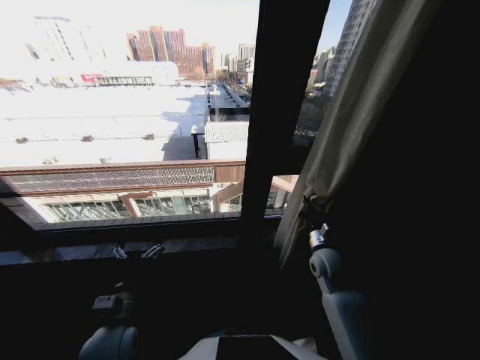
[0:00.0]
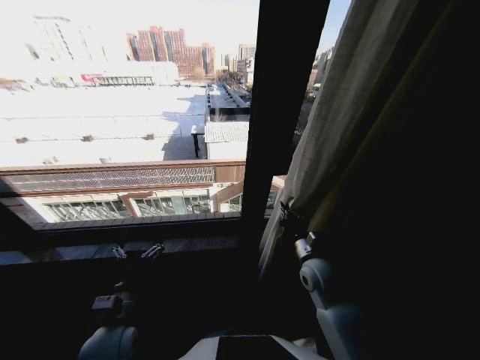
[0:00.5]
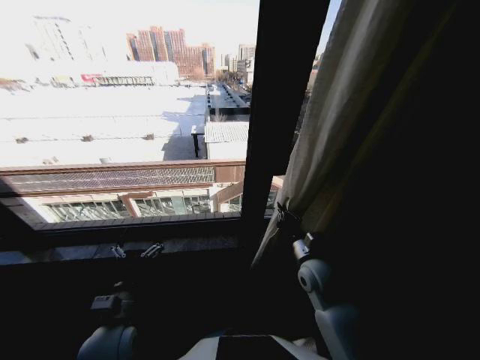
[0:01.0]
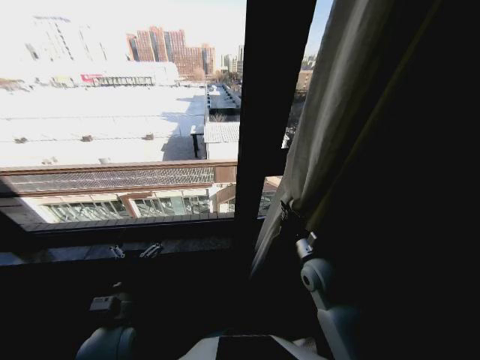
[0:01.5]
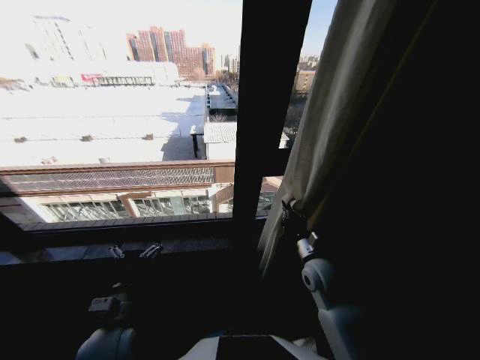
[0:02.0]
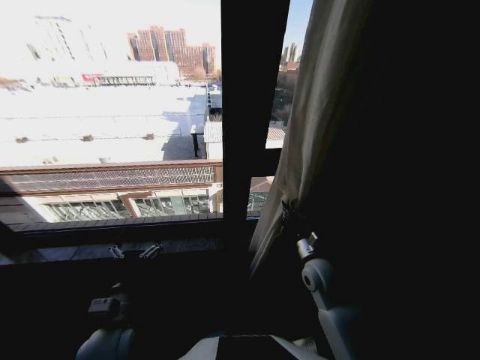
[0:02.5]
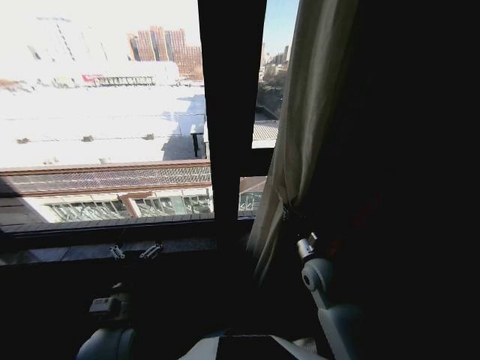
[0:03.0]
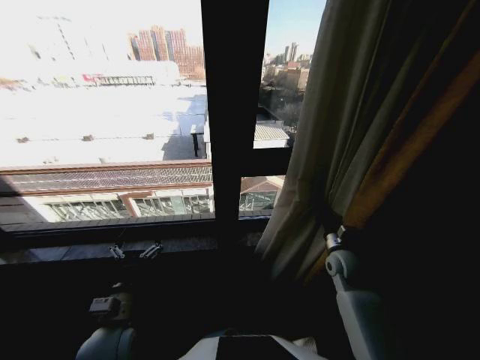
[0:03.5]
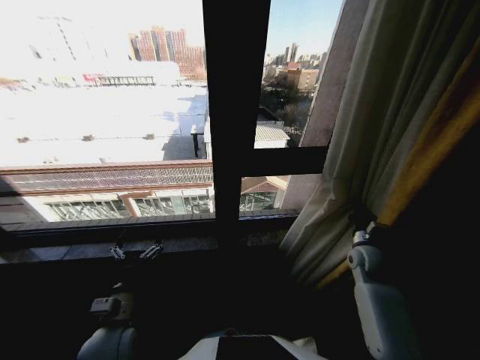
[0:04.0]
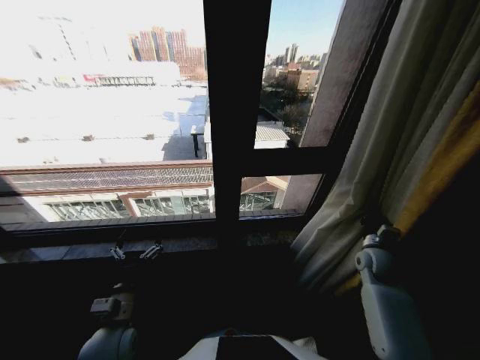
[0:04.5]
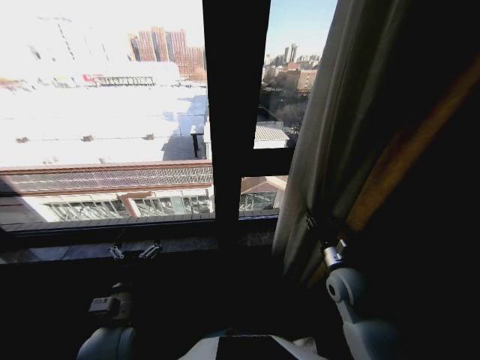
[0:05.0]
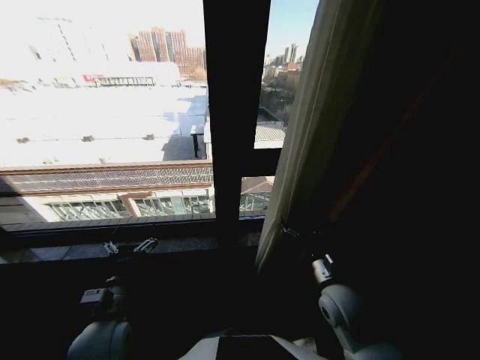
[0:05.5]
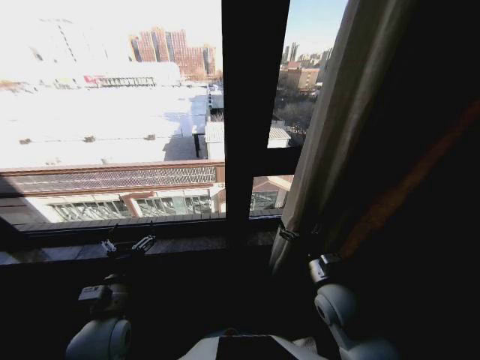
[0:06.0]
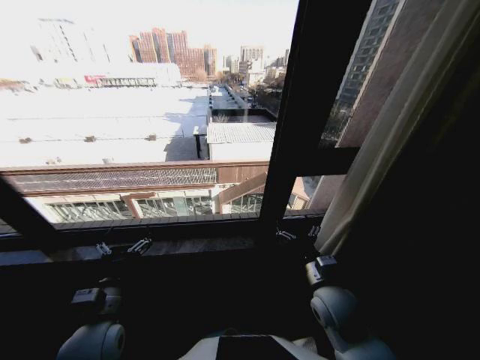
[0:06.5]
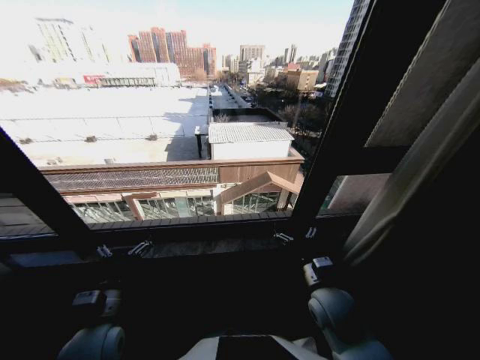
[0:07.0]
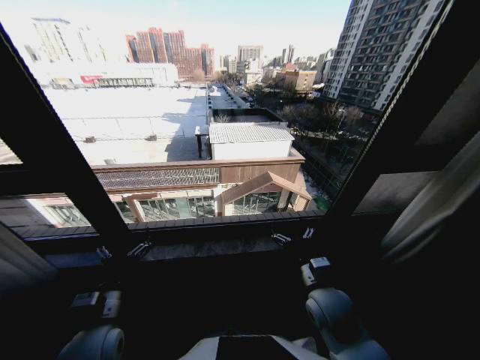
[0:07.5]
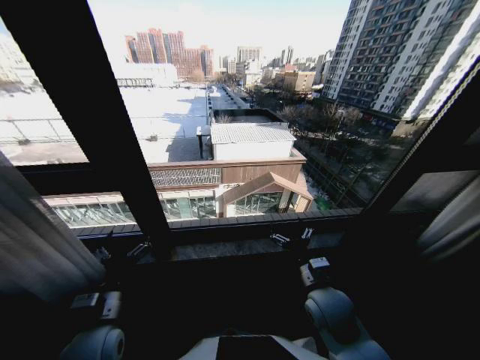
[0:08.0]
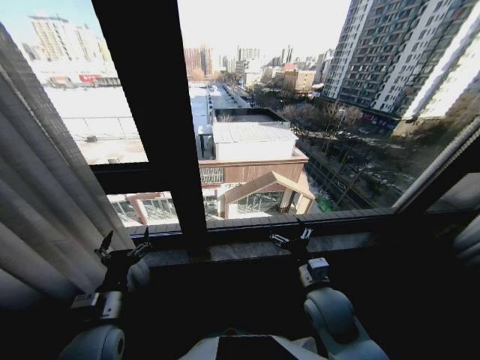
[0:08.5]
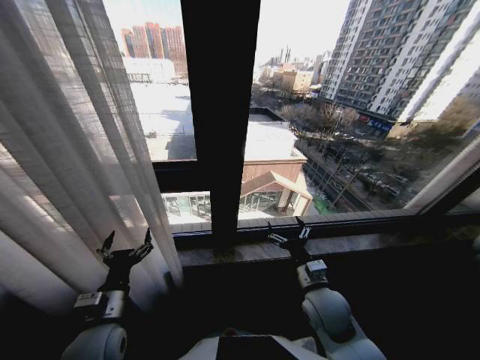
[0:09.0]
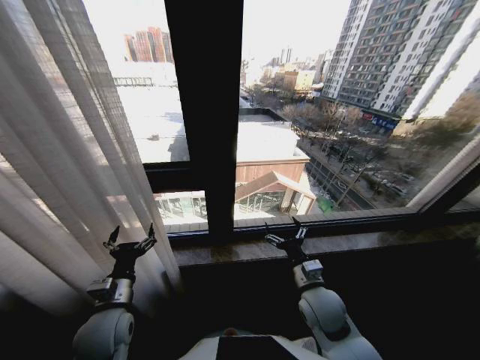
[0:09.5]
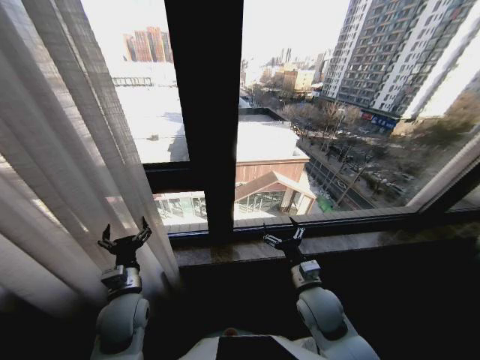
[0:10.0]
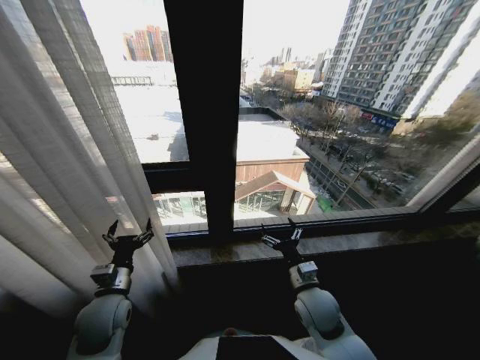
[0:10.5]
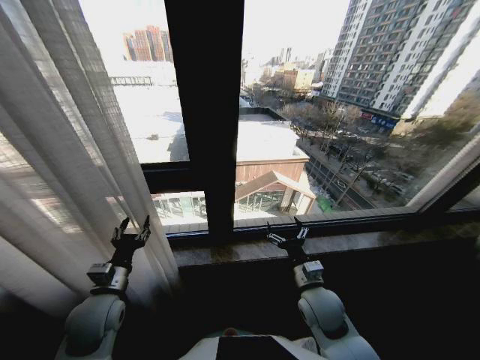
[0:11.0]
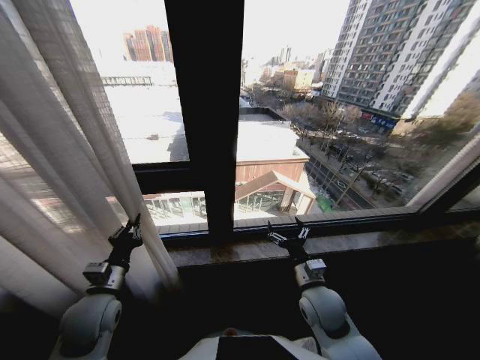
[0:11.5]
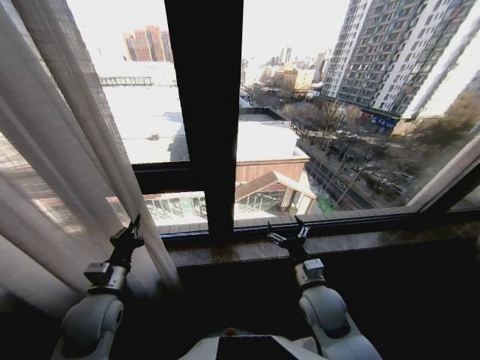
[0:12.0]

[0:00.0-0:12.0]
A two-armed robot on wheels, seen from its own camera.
Task of the whole recording: Open the curtains by pulling them apart, changing their state from closed to fully open.
0:00.0 to 0:02.0: The right gripper changes place by approximately 5 cm.
0:02.0 to 0:04.0: The right gripper heads to the right, covering approximately 15 cm.
0:04.0 to 0:06.0: The right gripper goes about 20 cm to the left and backward, and opens its fingers.
0:08.0 to 0:10.0: The left gripper goes about 5 cm forward.
0:10.0 to 0:12.0: The left gripper travels to the left by some 5 cm, and closes.

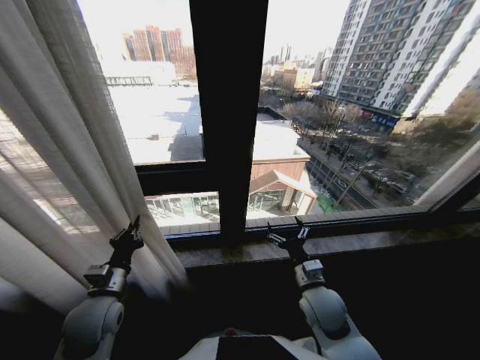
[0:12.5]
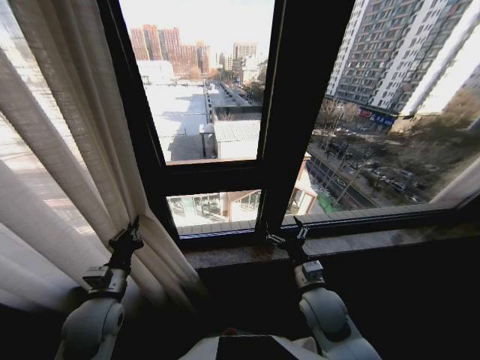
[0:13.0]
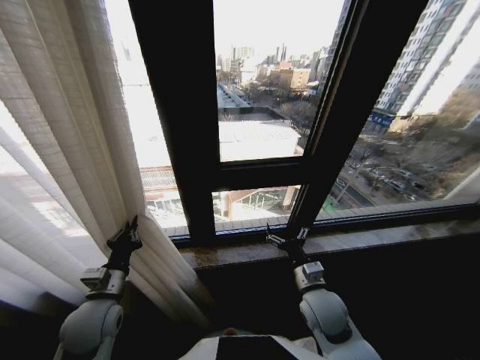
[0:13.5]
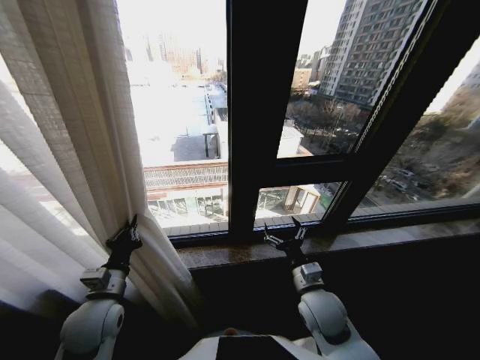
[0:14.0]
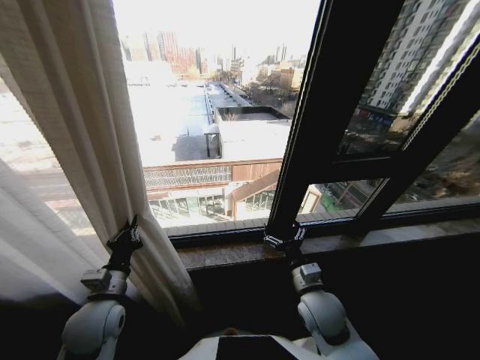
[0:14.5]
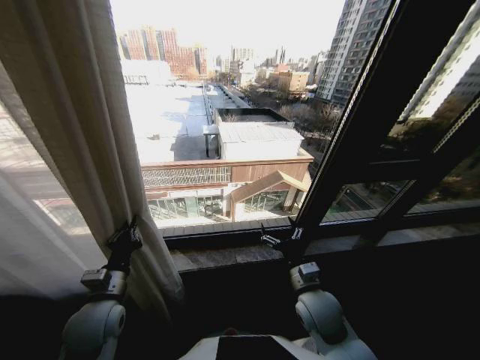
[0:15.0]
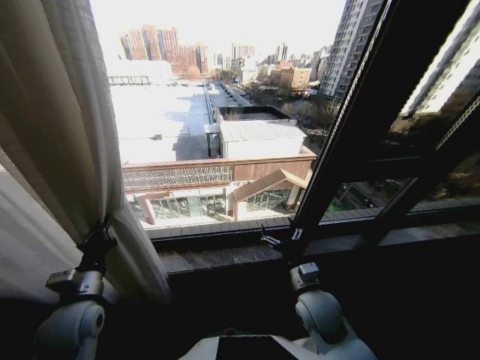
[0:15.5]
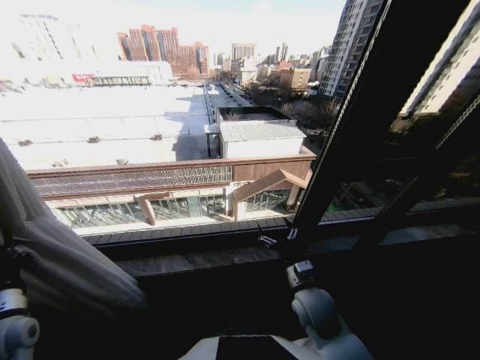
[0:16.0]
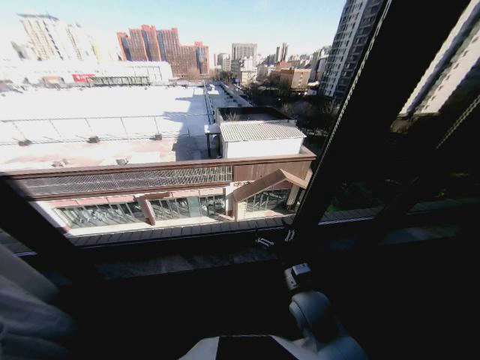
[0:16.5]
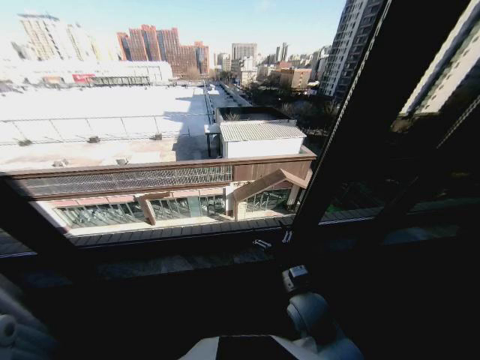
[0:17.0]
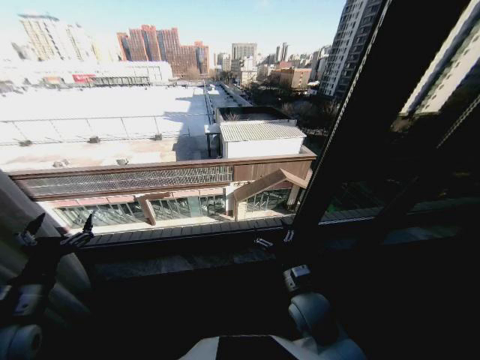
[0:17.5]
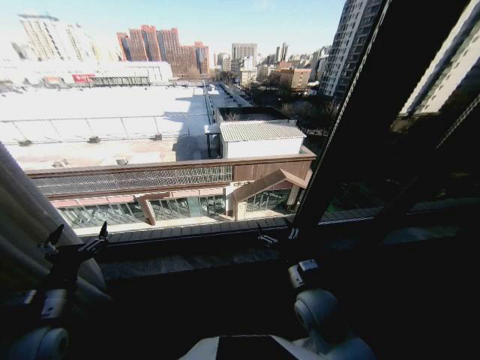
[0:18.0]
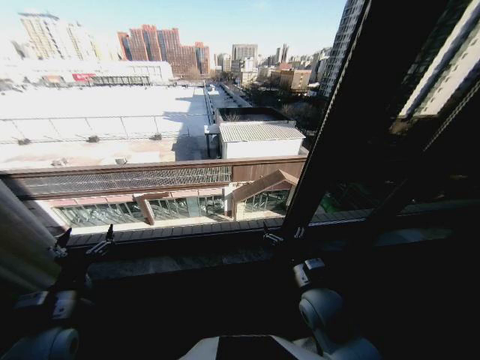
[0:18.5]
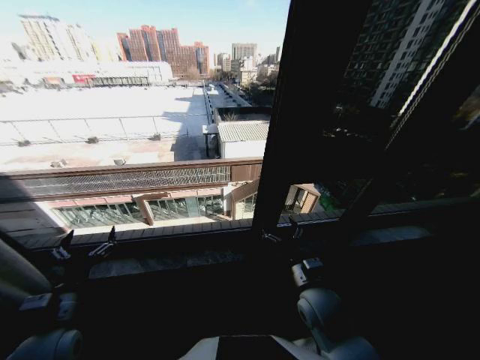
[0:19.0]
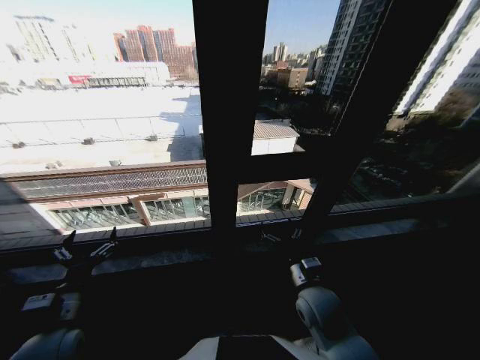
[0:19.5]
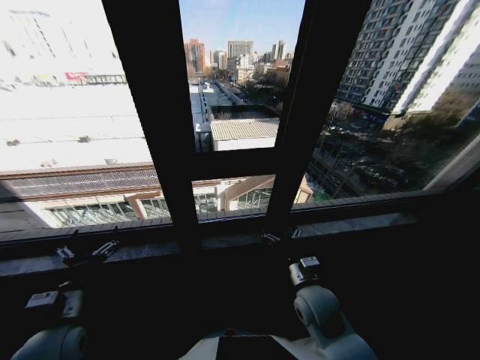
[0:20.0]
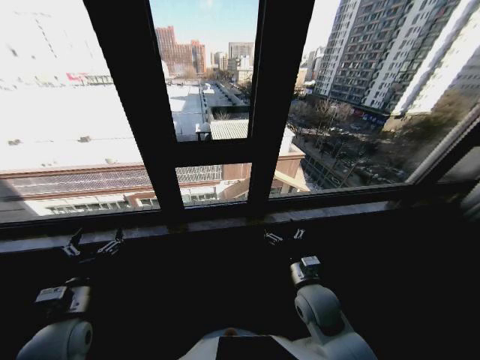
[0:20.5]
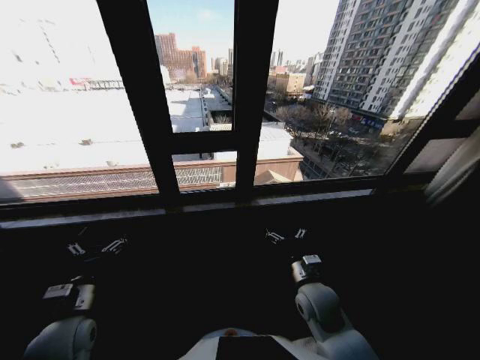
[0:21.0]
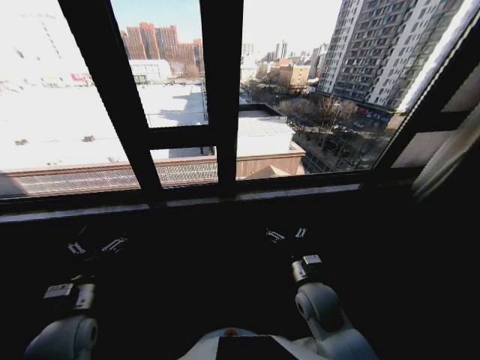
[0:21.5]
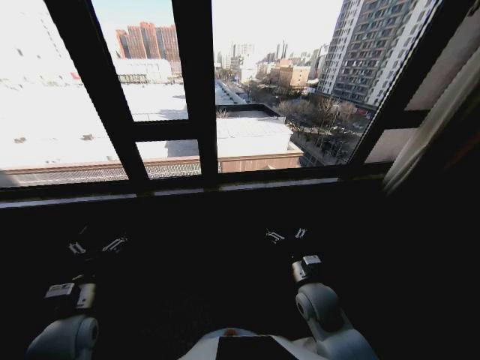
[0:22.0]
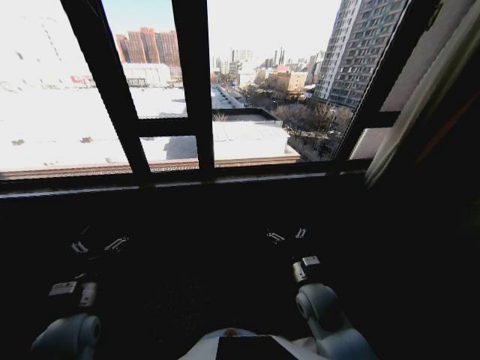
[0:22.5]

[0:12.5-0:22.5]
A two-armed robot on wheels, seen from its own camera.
Task of the whole recording: Open the curtains by pulling them apart, changing their state from closed to fully open.
0:14.5 to 0:16.5: The left gripper moves to the left, about 20 cm.
0:16.5 to 0:18.5: The left gripper is displaced to the right by roughly 15 cm, and opens its fingers.

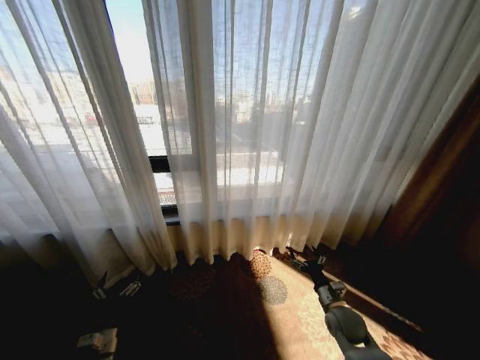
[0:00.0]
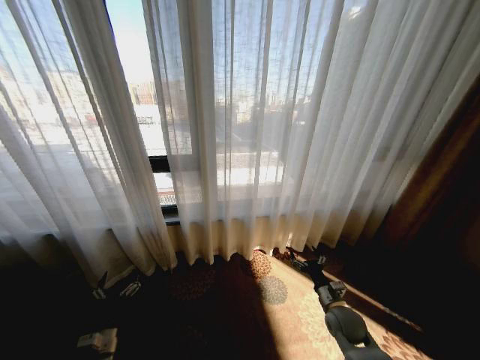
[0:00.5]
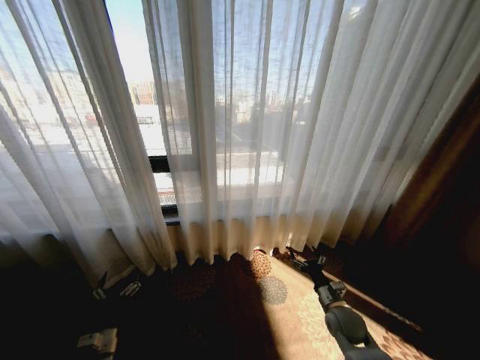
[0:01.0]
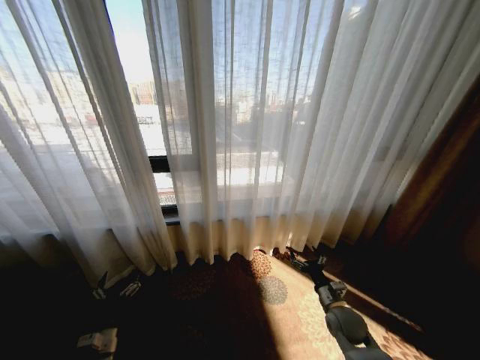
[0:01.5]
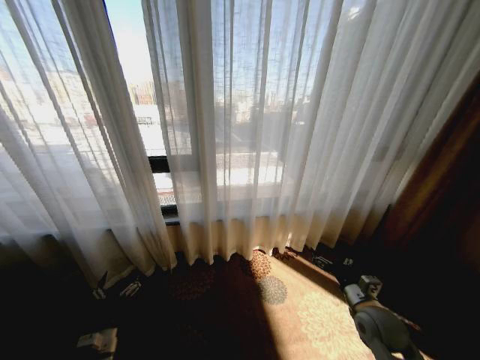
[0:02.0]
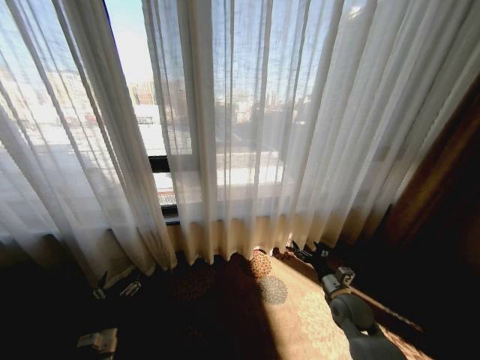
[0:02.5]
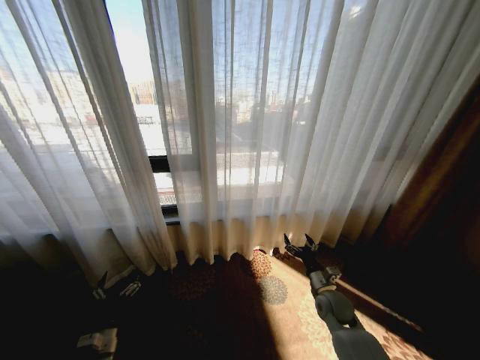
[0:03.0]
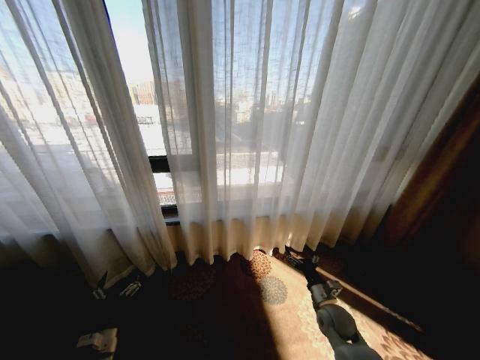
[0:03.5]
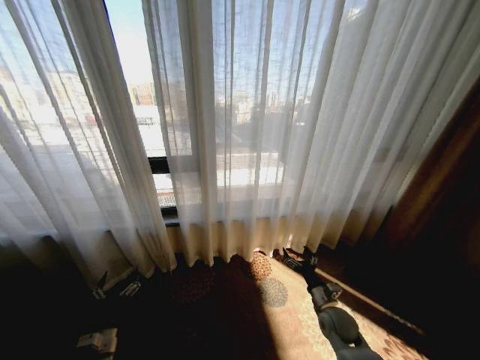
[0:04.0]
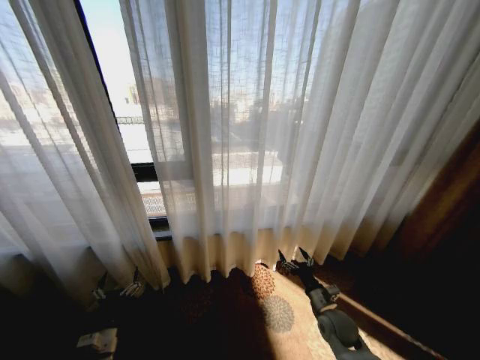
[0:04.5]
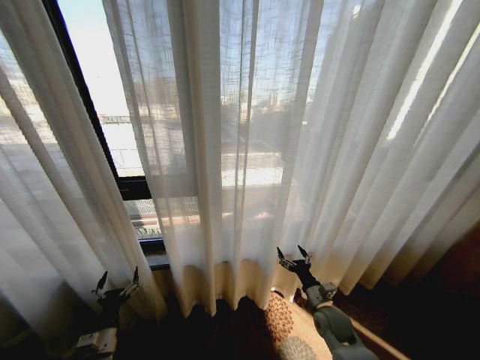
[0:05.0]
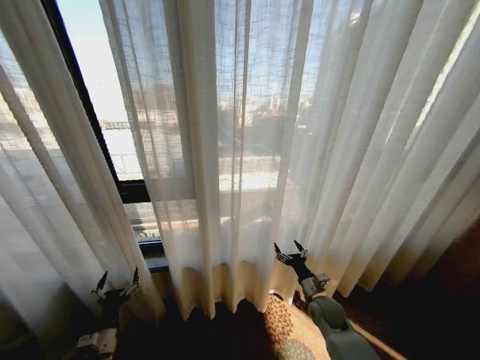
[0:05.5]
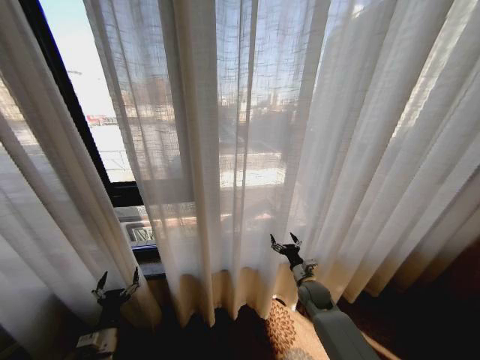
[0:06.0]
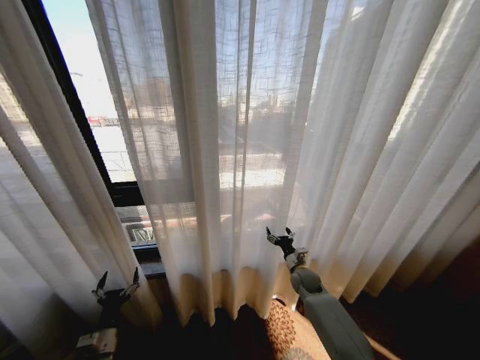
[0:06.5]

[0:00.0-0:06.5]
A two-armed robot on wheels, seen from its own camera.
Task of the whole recording: Open the curtains by pulling them apart, changing their state from closed to fully open.
0:02.0 to 0:04.5: The right gripper moves downward and to the left, some 10 cm.
0:04.5 to 0:06.5: The right gripper is displaced forward by approximately 15 cm.
